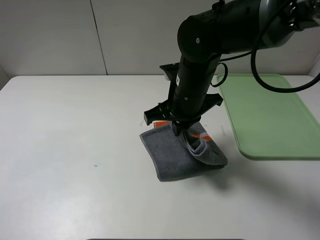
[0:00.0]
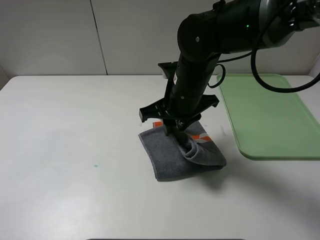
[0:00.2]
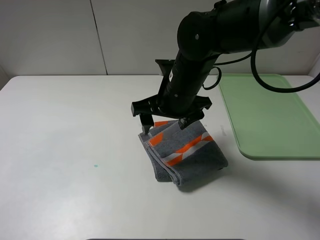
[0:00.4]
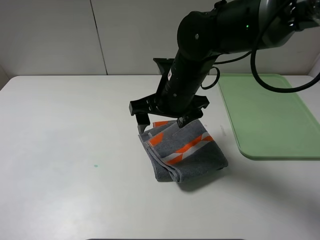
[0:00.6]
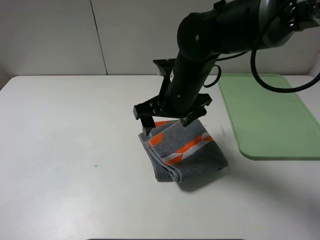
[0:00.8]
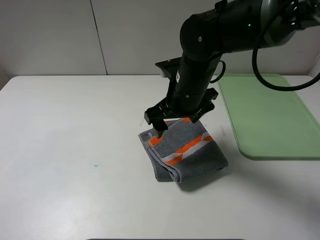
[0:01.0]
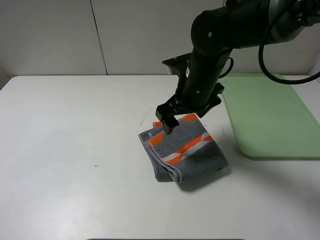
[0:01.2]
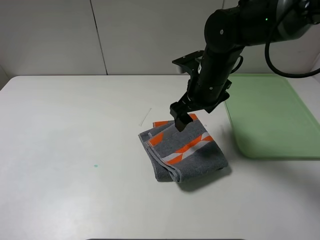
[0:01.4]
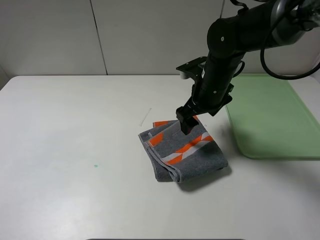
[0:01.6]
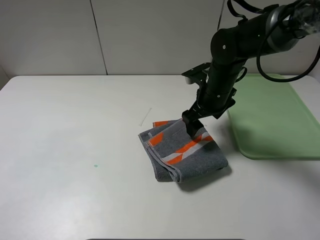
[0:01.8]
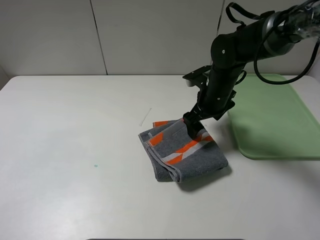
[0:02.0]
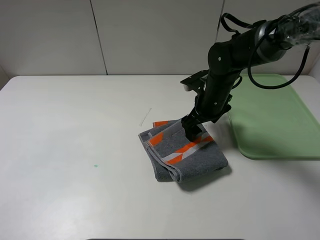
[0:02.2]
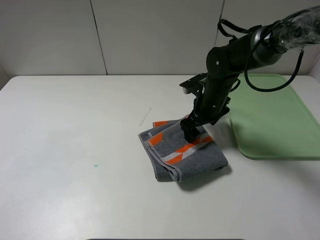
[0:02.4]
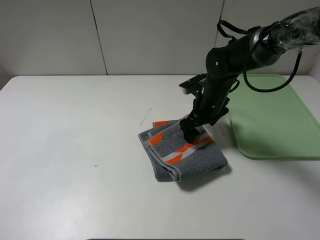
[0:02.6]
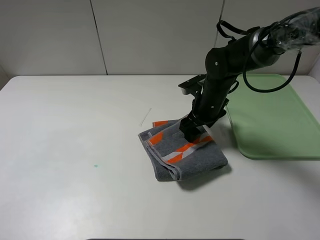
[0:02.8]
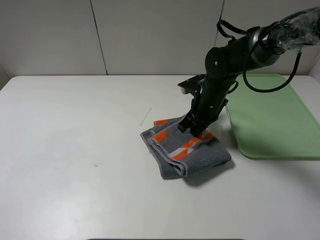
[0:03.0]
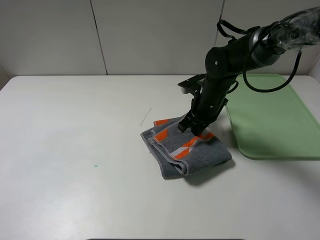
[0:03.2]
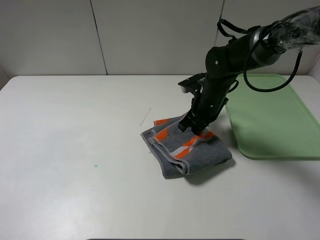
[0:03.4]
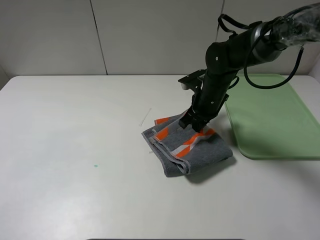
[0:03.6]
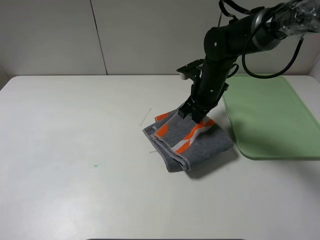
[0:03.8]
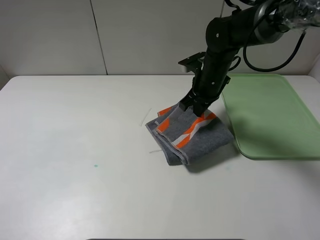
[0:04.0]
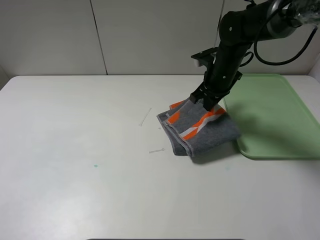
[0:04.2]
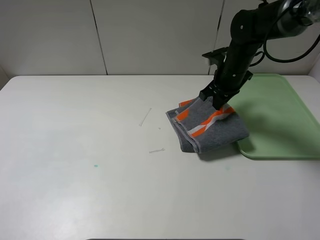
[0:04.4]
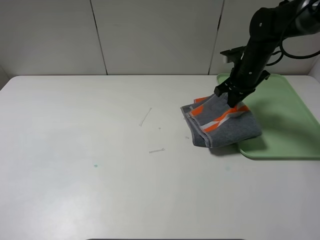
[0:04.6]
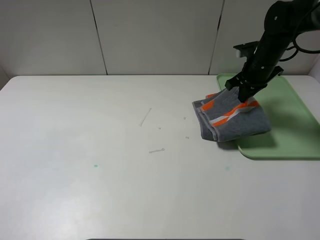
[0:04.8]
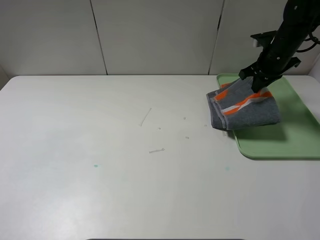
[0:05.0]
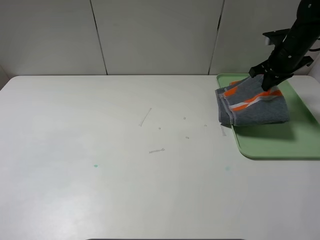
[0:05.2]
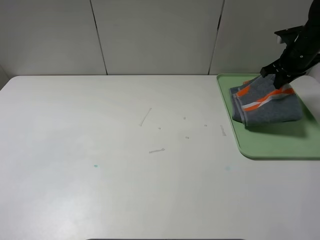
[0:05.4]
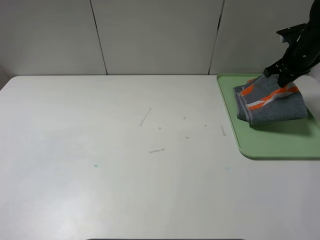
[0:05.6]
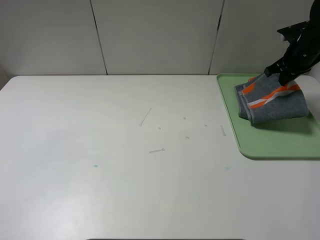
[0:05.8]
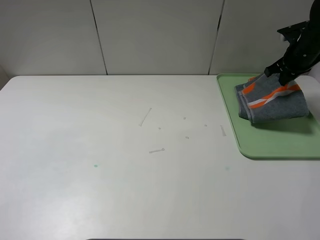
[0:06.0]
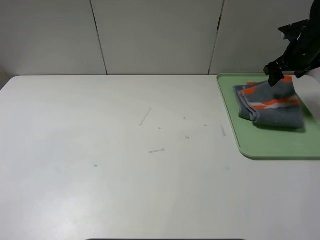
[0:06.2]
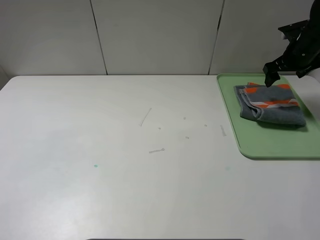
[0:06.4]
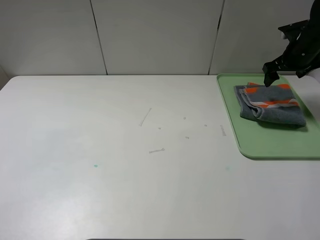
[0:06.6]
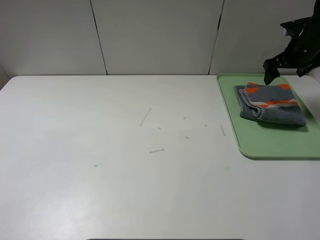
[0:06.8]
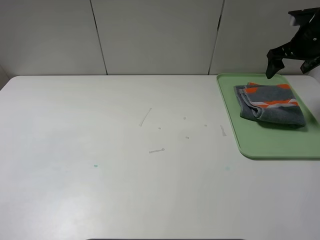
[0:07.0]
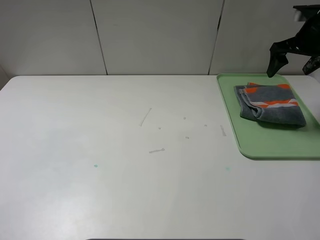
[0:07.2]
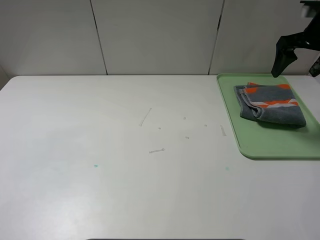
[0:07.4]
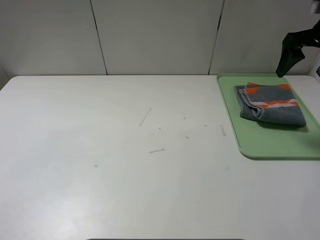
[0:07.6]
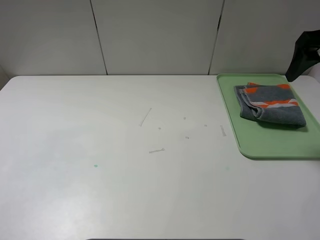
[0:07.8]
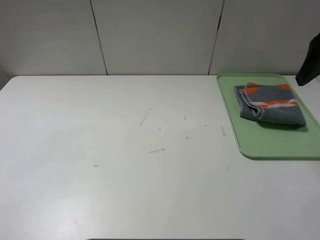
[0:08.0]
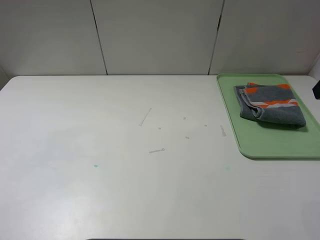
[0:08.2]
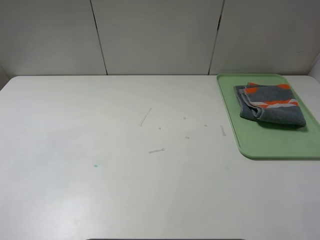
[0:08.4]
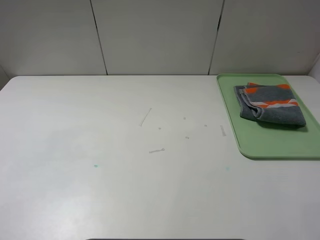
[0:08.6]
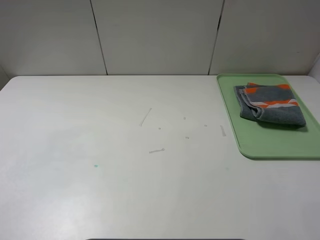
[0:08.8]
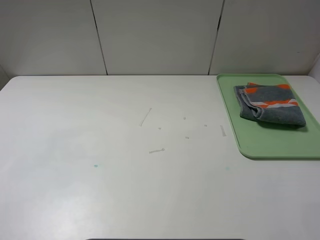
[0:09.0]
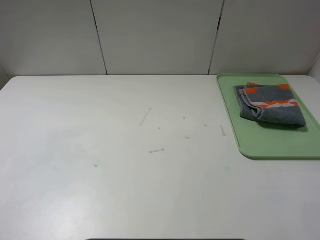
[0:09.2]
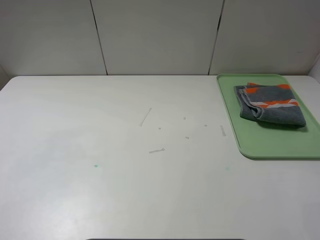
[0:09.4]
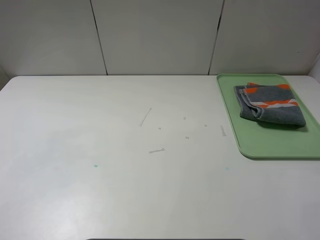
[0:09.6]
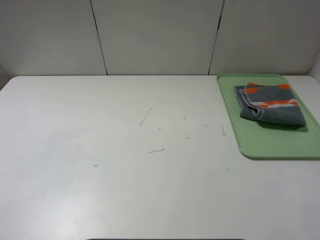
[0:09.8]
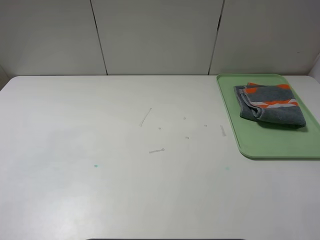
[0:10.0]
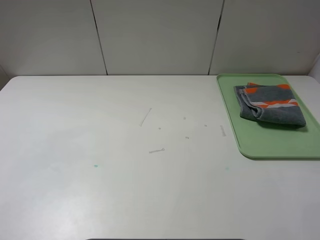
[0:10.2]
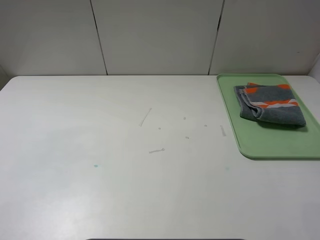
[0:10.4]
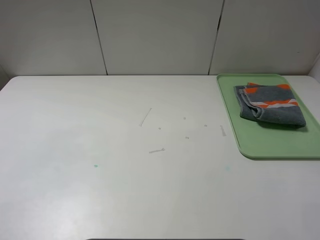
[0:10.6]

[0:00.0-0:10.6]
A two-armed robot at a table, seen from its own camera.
Step, 0:00.6 to 0:06.2: Place the folded grey towel on the tray with the right gripper.
0:00.0 to 0:01.6: The right gripper goes some 10 cm to the right and forward, and opens.
0:01.6 to 0:03.0: The right gripper goes about 5 cm downward, and closes.
0:03.0 to 0:04.6: The right gripper goes roughly 15 cm to the right, forward and upward.
0:04.6 to 0:06.0: The right gripper heads to the right, covering some 15 cm.
0:06.0 to 0:07.6: The right gripper is displaced upward and backward by approximately 15 cm, and opens up.
0:07.6 to 0:09.0: The right gripper goes some 35 cm backward.
